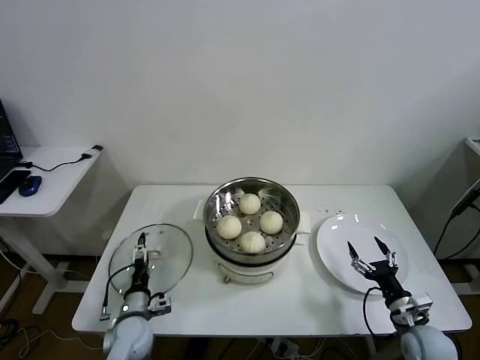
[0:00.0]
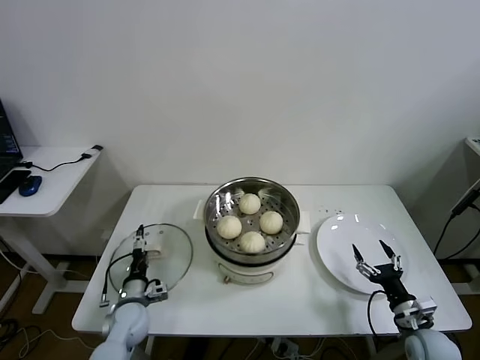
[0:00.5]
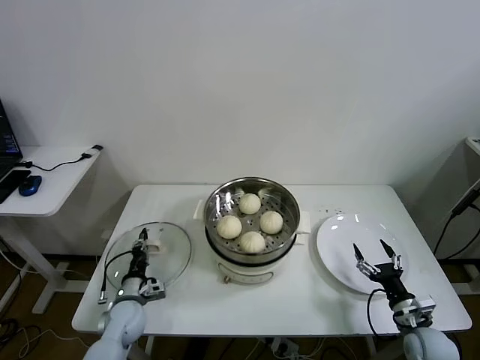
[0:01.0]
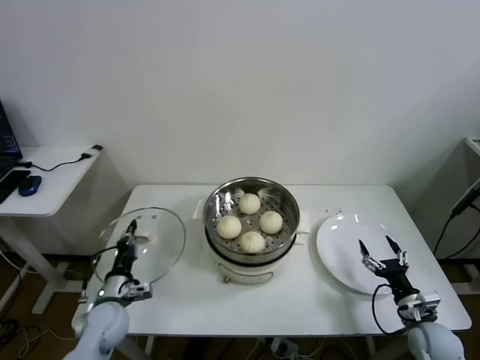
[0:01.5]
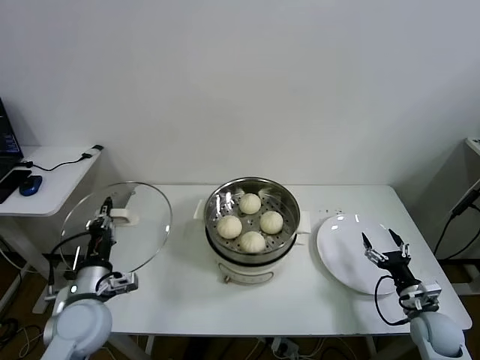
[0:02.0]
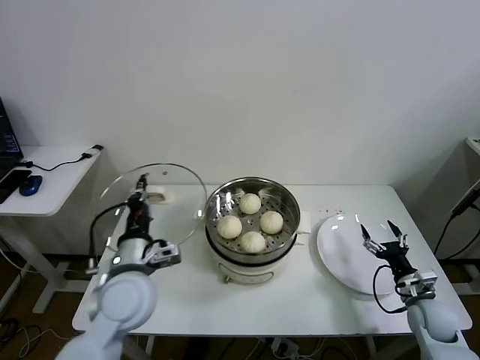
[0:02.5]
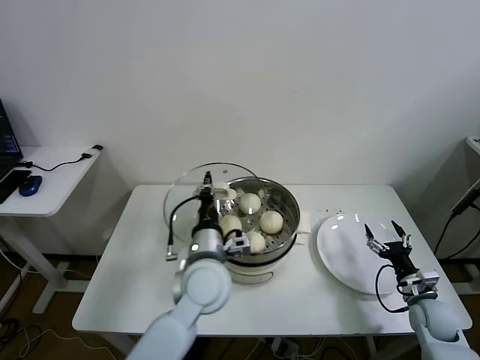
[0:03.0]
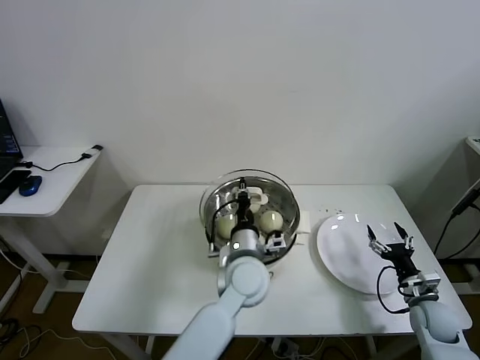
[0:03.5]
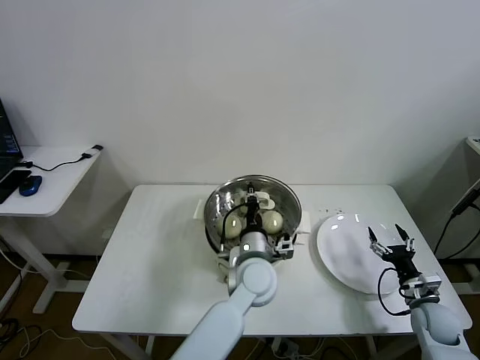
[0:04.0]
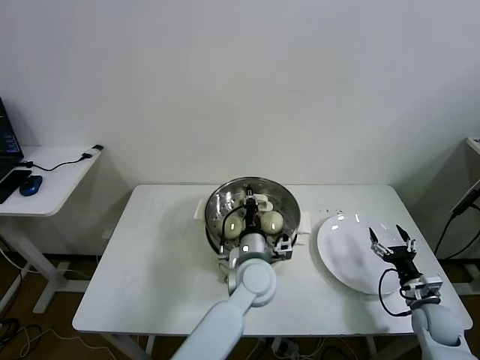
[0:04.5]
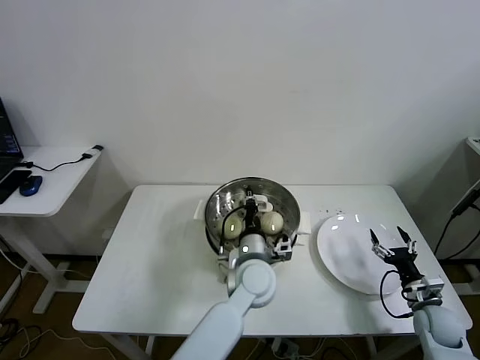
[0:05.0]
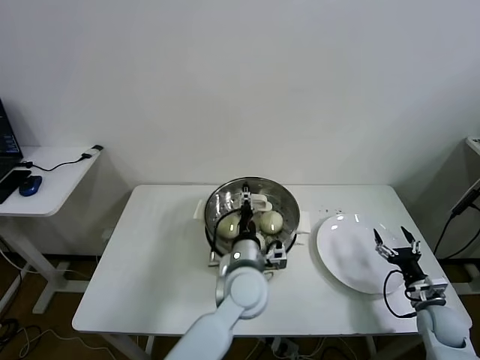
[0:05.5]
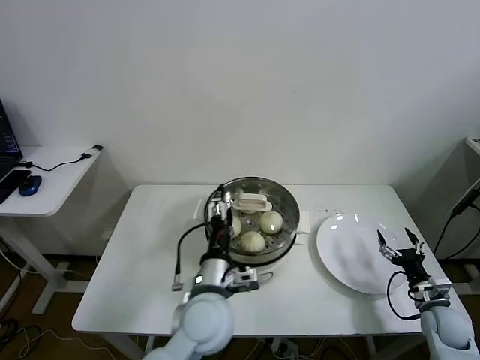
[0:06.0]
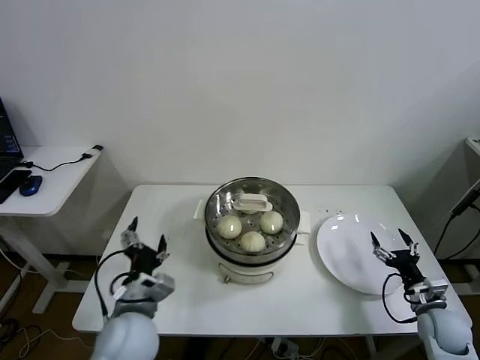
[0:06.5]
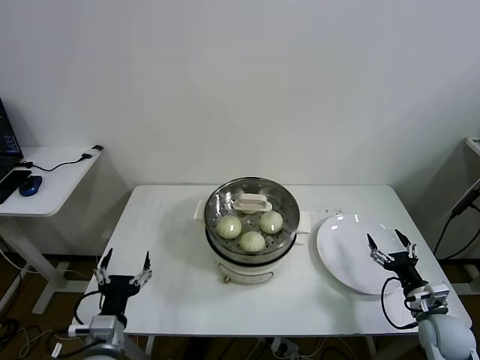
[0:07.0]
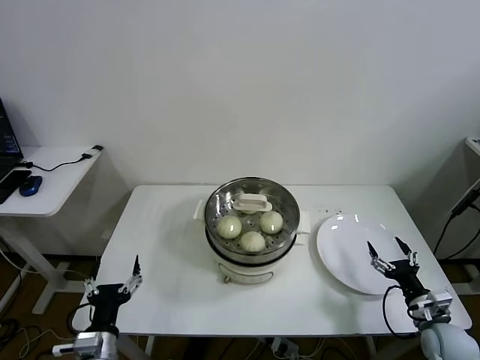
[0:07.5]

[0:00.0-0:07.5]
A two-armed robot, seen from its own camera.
Task of the whole recording: take steamed baozi put them in steamer.
Step, 1.5 to 5.5 s: Place the pot lid on the steamer with left gripper.
0.0 to 2.0 s: The left gripper heads upward, covering about 15 cm, and closes its fingers.
2.0 to 4.0 s: The left gripper moves to the right, some 35 cm.
4.0 to 5.5 s: The left gripper opens.
5.5 to 7.5 s: The right gripper ends up some 5 cm from where it was, while the left gripper heads to the left and backward, covering approximately 35 cm, and opens up.

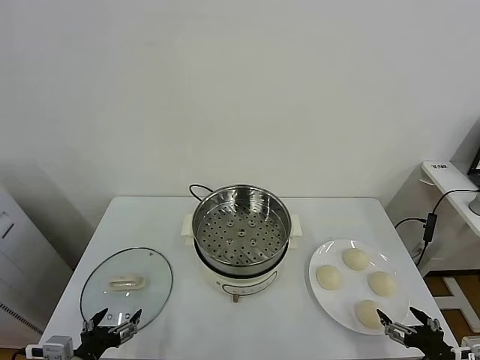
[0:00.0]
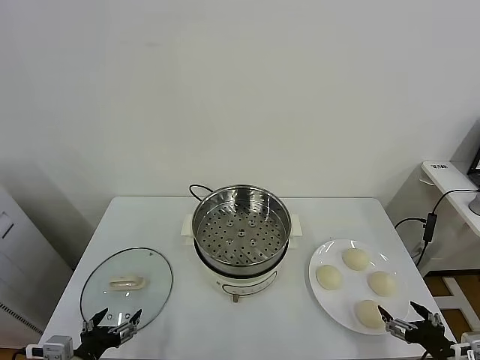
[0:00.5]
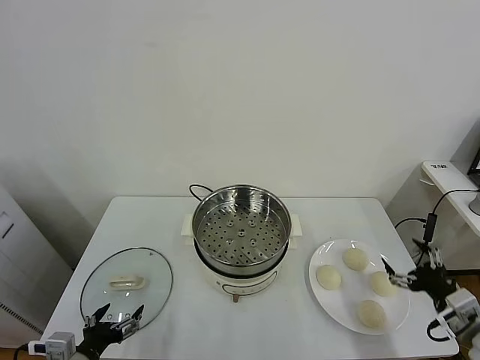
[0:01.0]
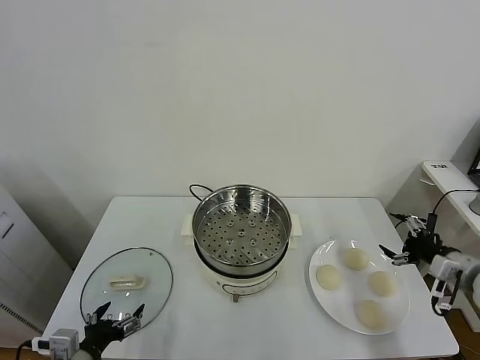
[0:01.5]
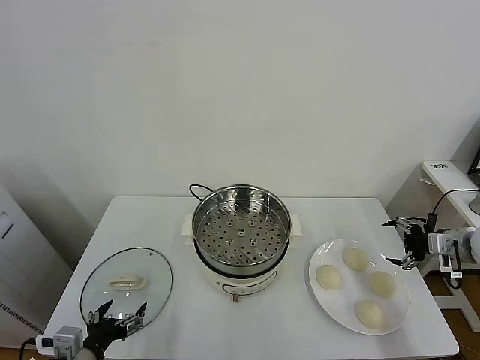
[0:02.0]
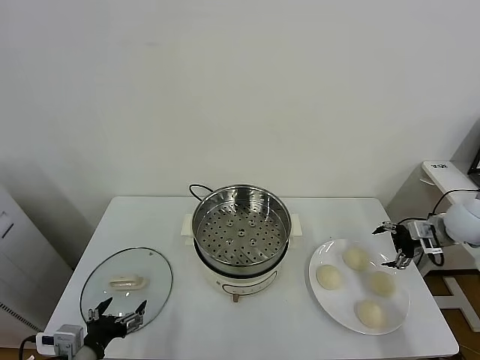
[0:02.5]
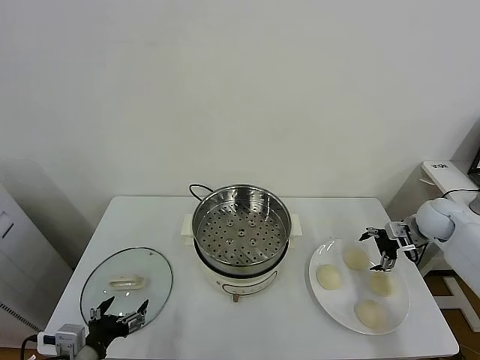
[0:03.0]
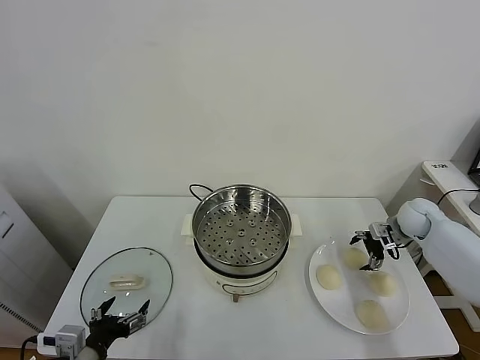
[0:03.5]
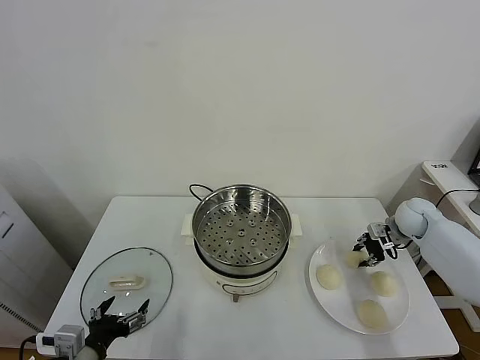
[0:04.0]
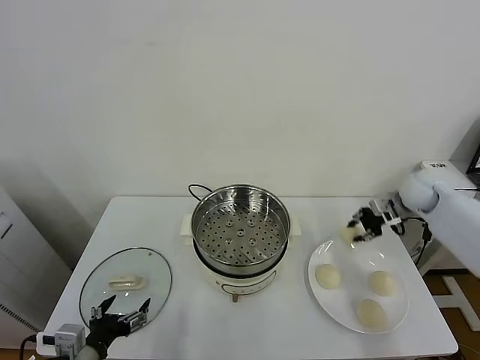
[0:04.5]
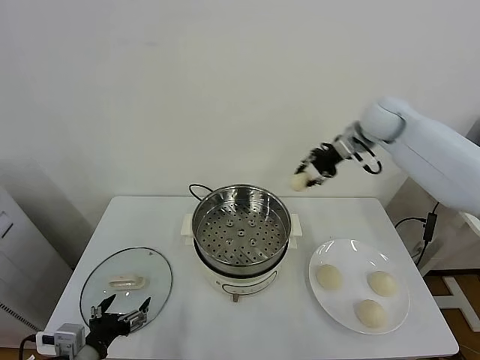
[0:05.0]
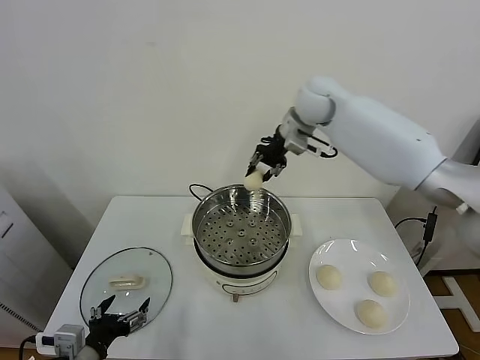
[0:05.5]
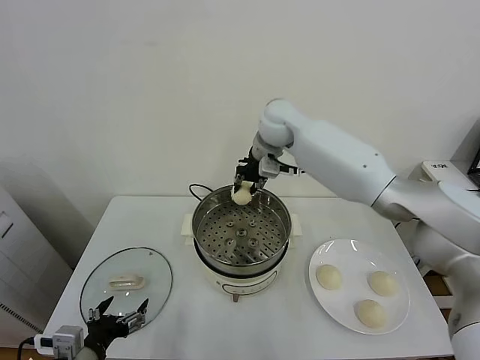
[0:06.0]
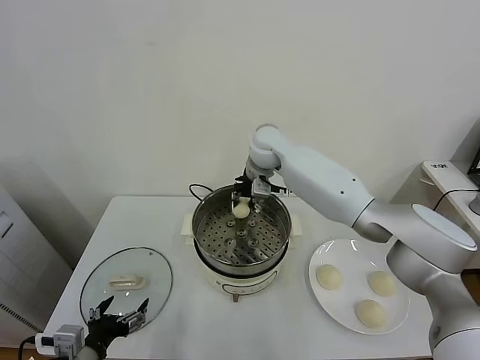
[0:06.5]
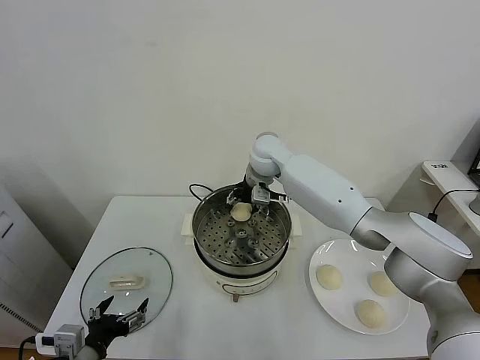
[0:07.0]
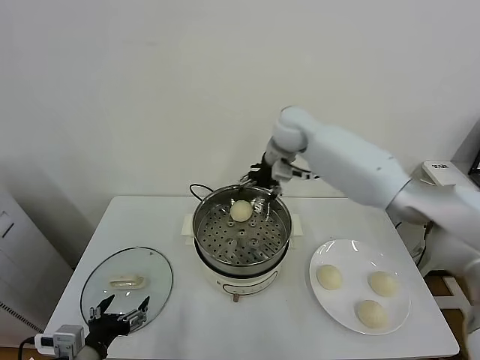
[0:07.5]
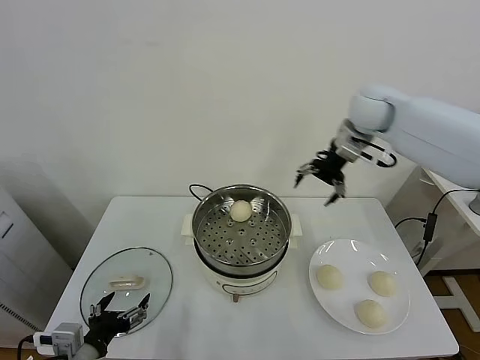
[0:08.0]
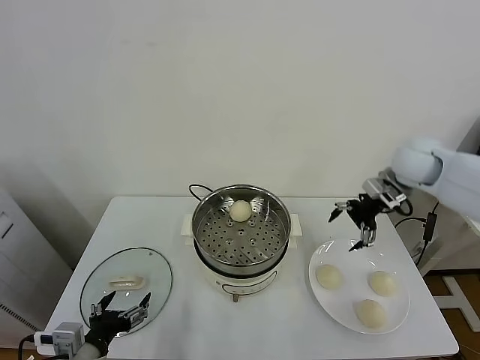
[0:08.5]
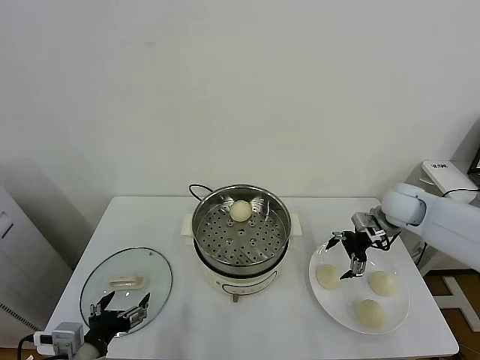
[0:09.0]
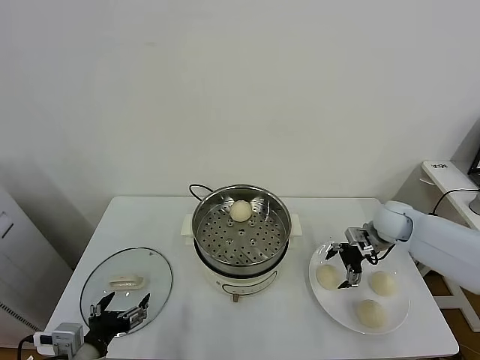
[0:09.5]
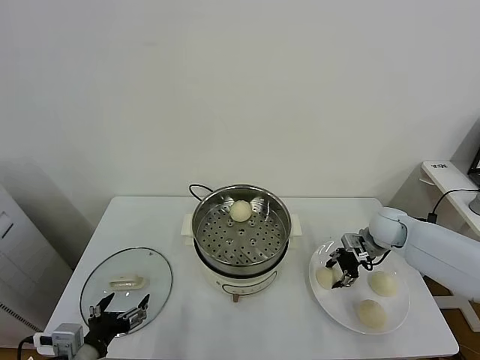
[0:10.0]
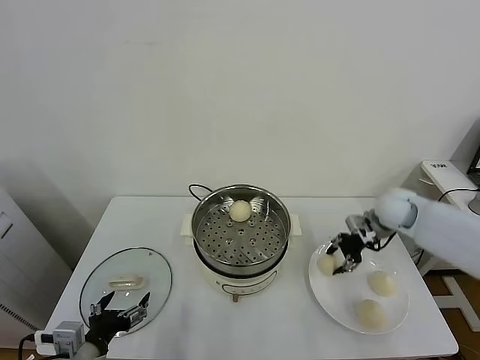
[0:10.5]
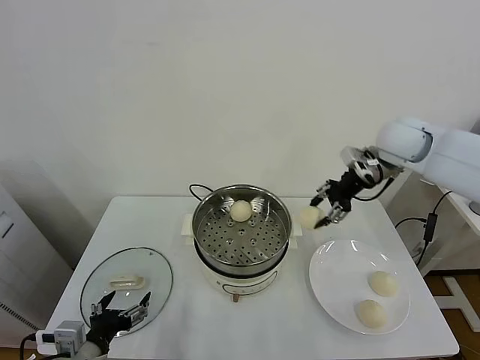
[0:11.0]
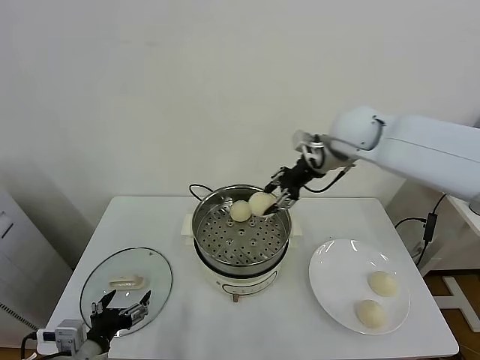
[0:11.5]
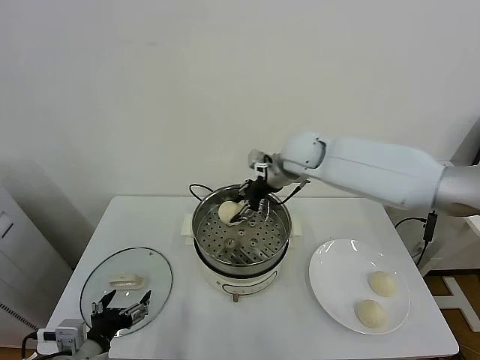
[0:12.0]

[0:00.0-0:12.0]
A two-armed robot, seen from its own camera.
Task of the whole recording: take steamed baozi put them in steamer.
Step, 0.0 to 4.0 s: Grasp the baozi in the plate with right gripper.
Step, 4.5 to 7.0 s: Place the baozi on the steamer with right gripper.
Step, 7.5 to 10.0 s: Grasp the baozi in the plate with right gripper.
2.0 to 4.0 s: The right gripper shifts about 15 cm forward and downward, and closes its fingers.
4.0 to 6.0 s: The right gripper moves to the left and upward, roughly 40 cm.
6.0 to 8.0 s: The right gripper shifts roughly 20 cm to the right, and opens.
8.0 to 10.0 s: The right gripper shifts about 25 cm downward, and closes its fingers.
10.0 to 12.0 s: The right gripper is displaced to the left and upward by approximately 30 cm.

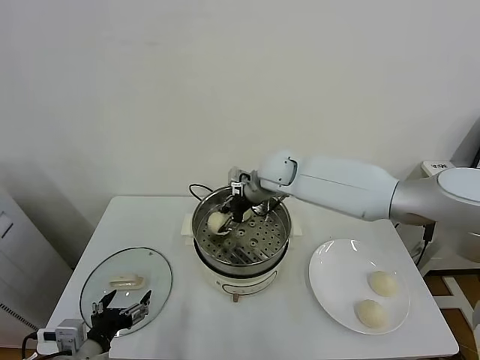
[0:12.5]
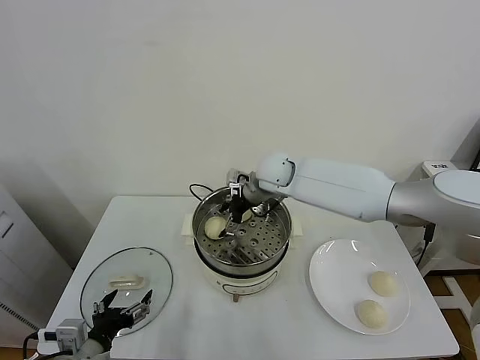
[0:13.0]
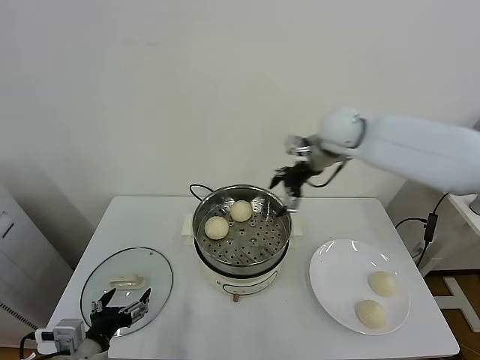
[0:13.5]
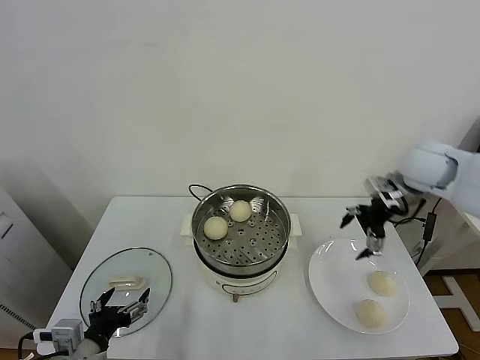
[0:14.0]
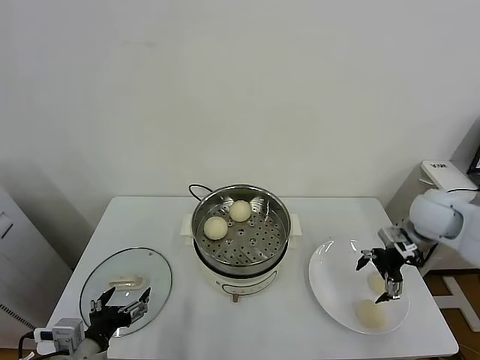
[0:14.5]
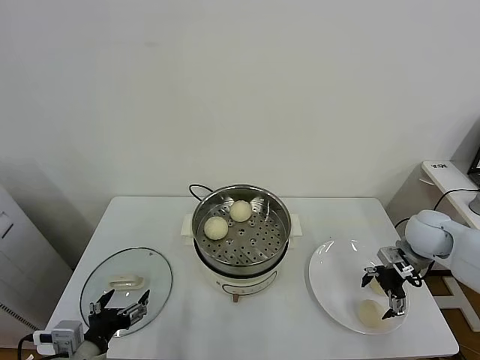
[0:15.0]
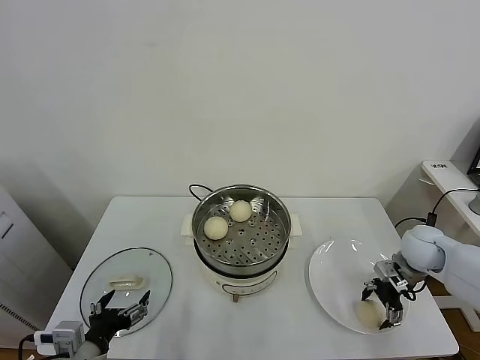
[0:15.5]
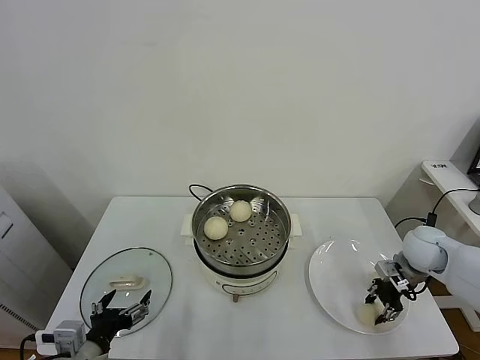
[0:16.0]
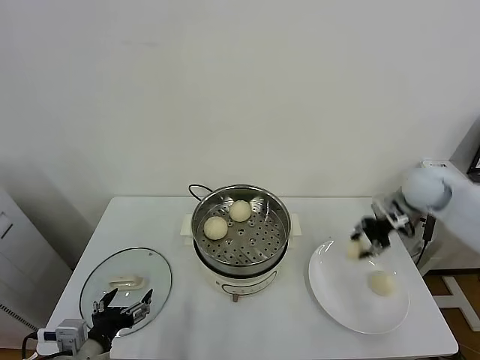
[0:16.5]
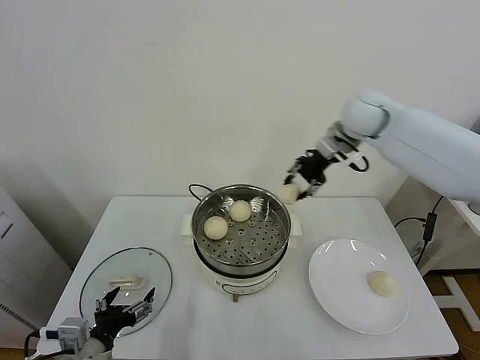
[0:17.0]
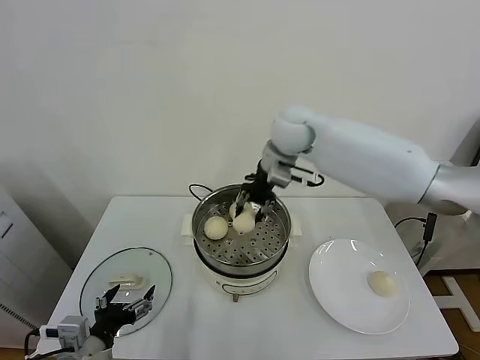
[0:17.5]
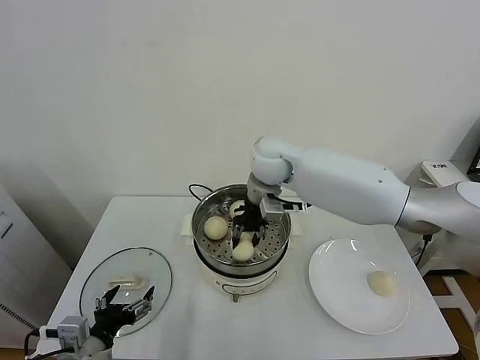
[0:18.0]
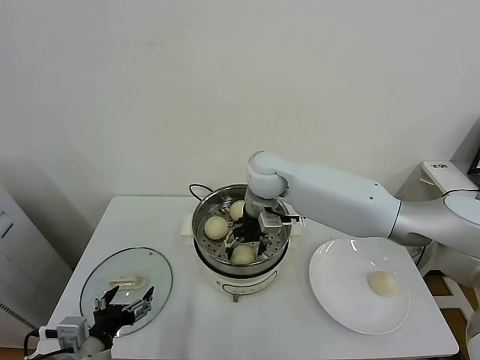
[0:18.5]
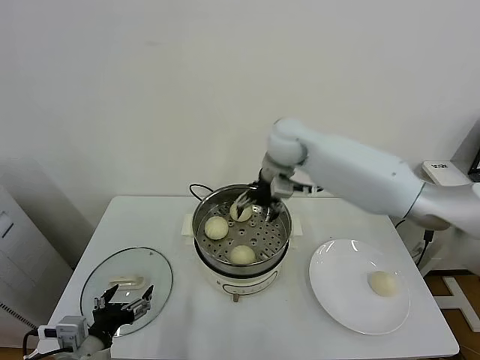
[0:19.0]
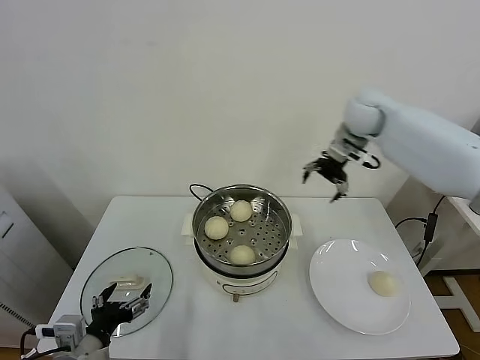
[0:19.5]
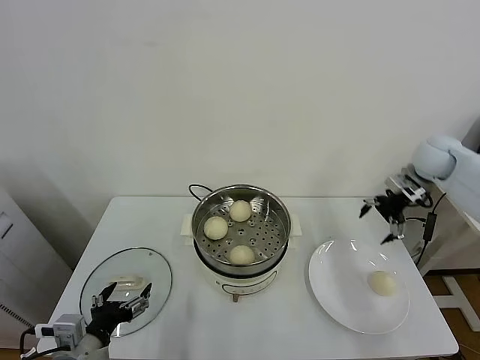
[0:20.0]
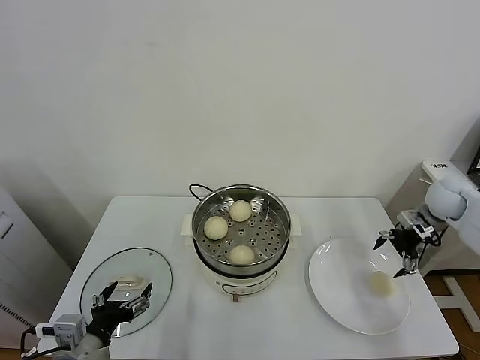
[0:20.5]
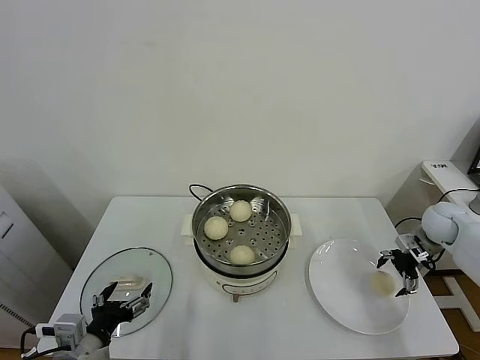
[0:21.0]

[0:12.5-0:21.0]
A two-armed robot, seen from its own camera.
Task of the whole recording: take steamed baozi put them in steamer.
Step, 13.5 to 15.5 s: Grasp the baozi in the plate with right gripper.
Step, 16.5 to 18.5 s: Place the baozi on the steamer with right gripper.
12.5 to 14.5 s: The right gripper travels to the right by about 35 cm, and opens its fingers.
14.5 to 16.5 s: The right gripper is displaced forward and upward by approximately 10 cm, and closes its fingers.
16.5 to 19.0 s: The right gripper goes about 30 cm to the left, and opens its fingers.
19.0 to 21.0 s: The right gripper goes roughly 40 cm to the right and downward.
